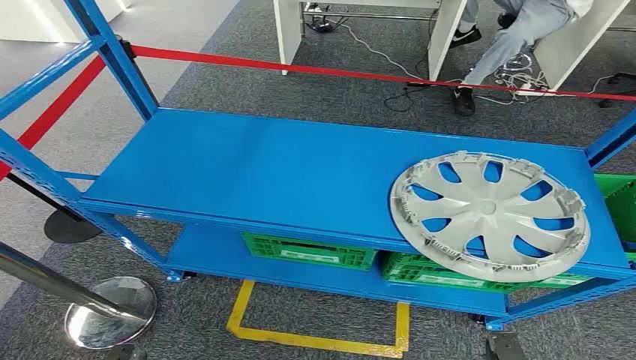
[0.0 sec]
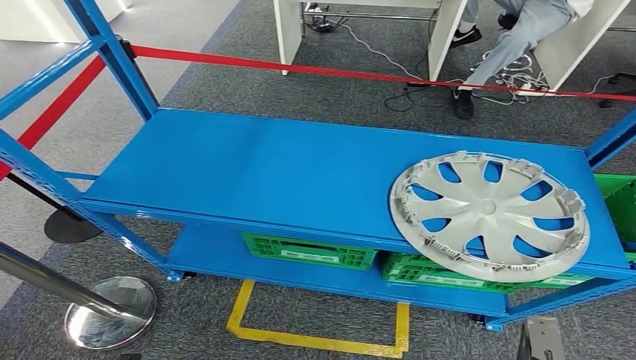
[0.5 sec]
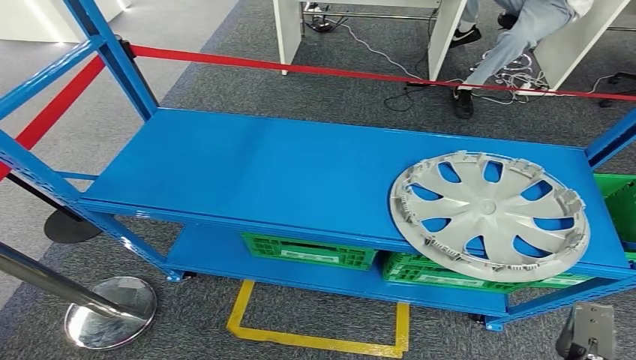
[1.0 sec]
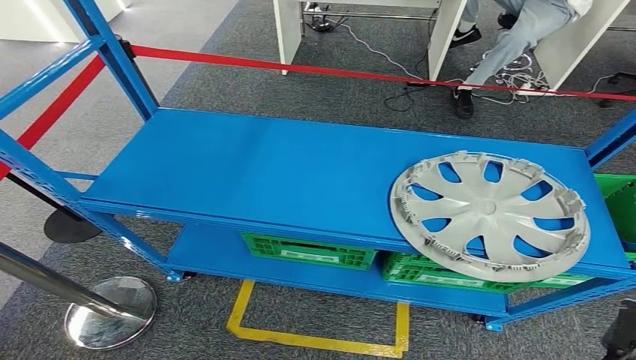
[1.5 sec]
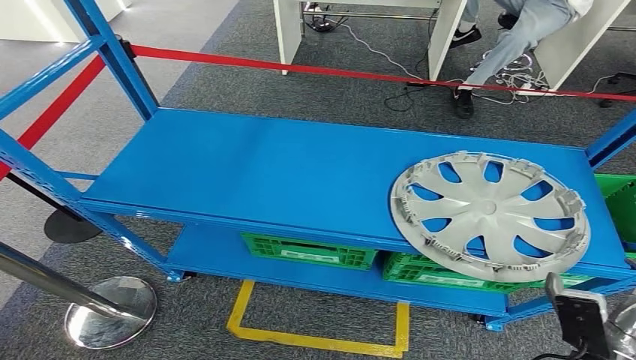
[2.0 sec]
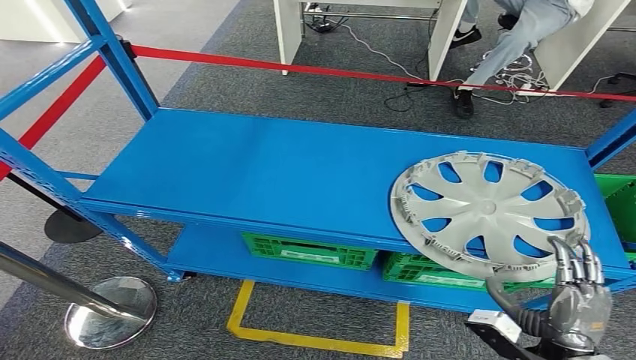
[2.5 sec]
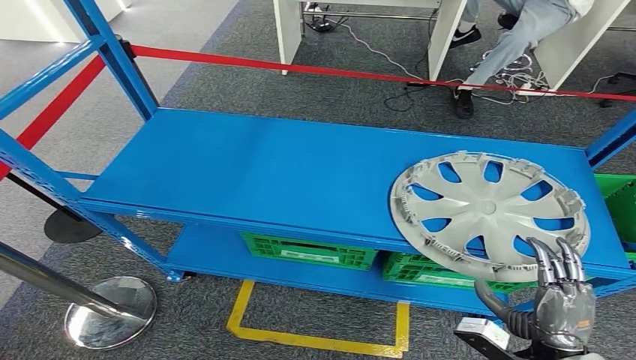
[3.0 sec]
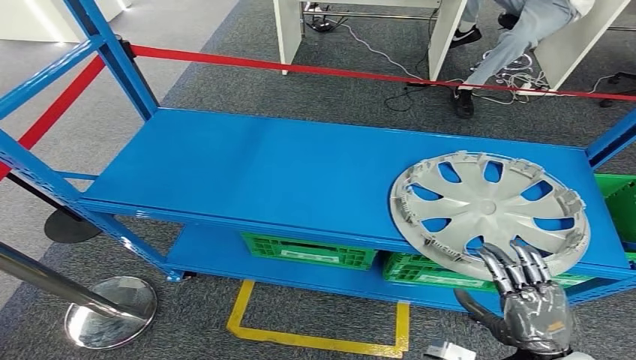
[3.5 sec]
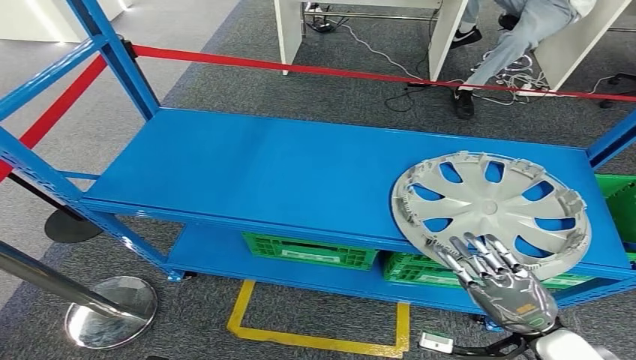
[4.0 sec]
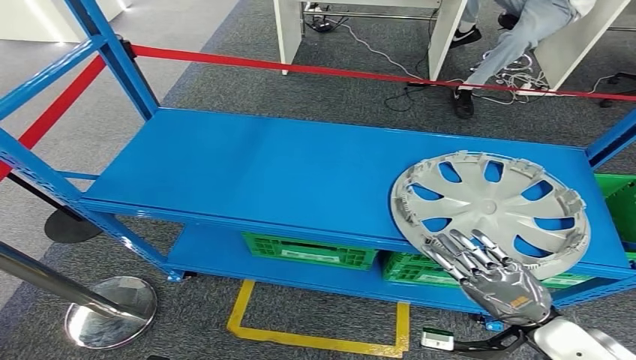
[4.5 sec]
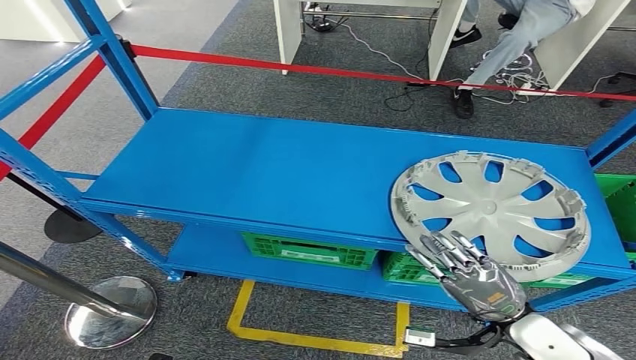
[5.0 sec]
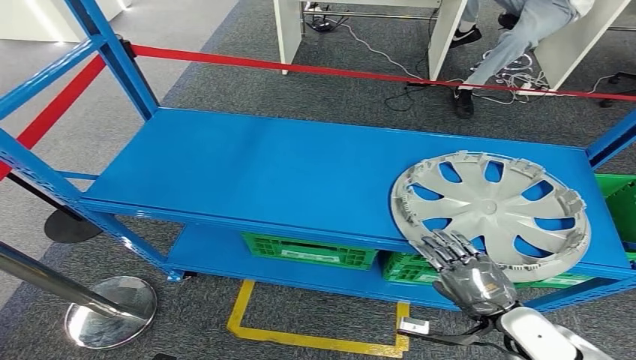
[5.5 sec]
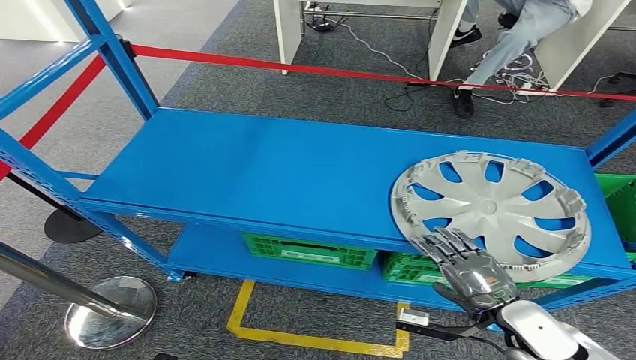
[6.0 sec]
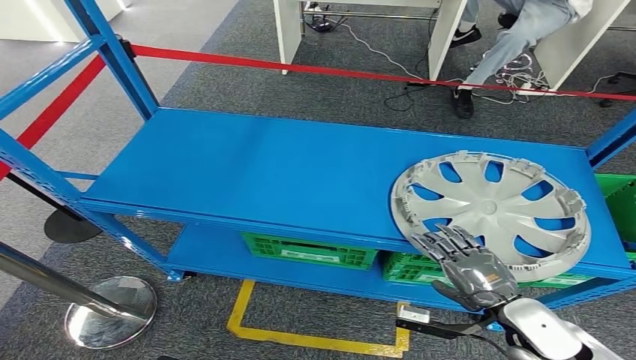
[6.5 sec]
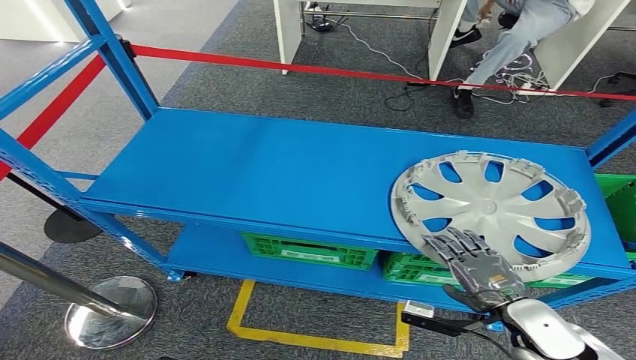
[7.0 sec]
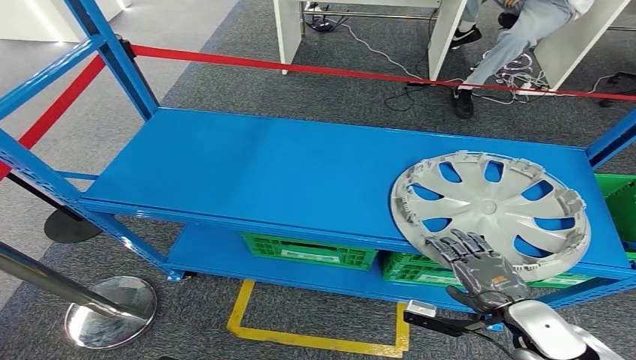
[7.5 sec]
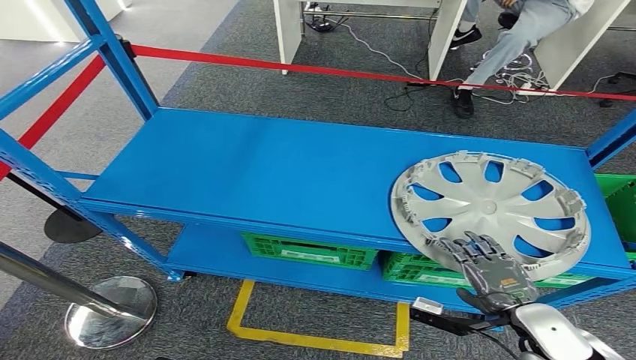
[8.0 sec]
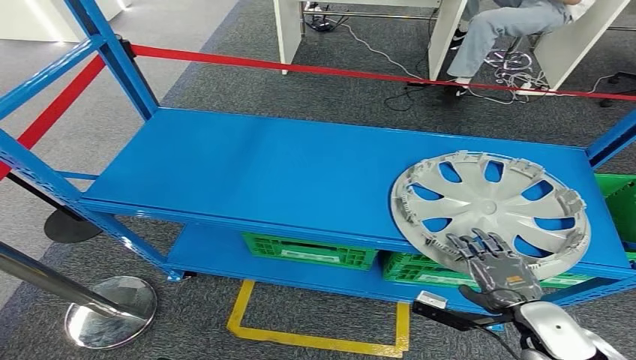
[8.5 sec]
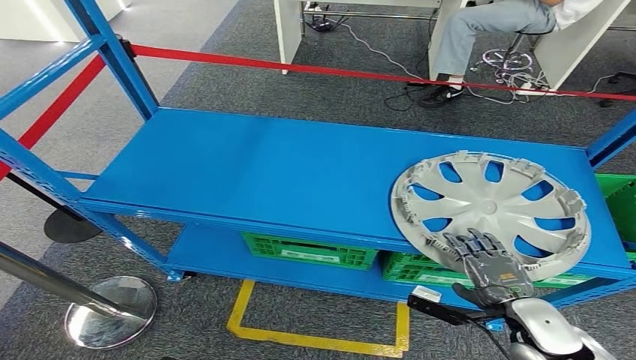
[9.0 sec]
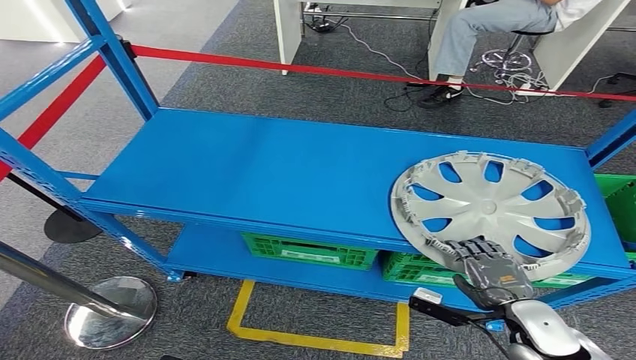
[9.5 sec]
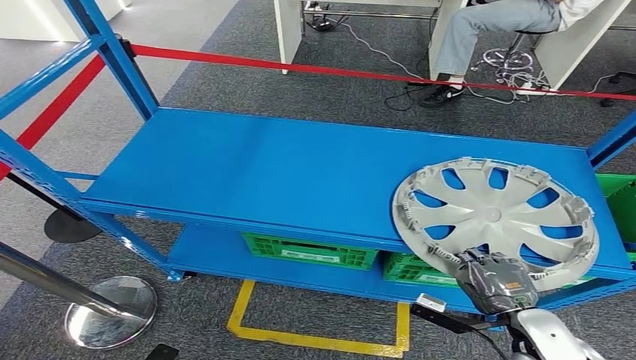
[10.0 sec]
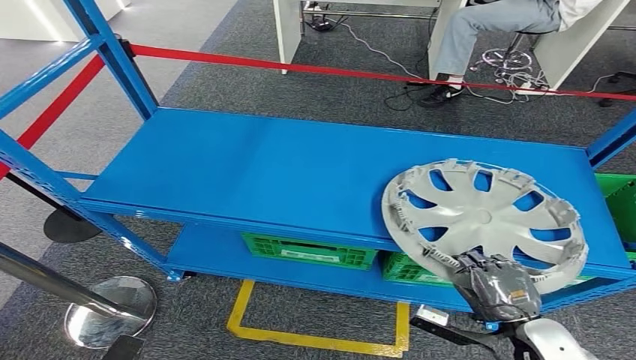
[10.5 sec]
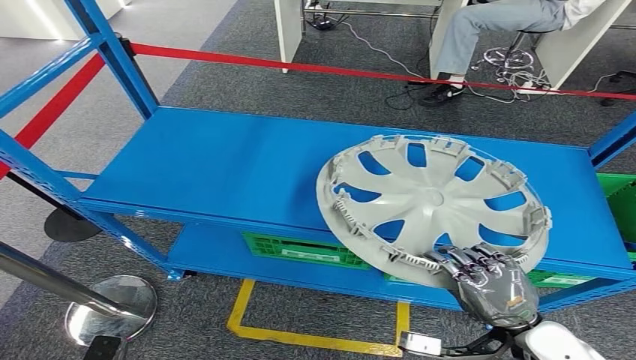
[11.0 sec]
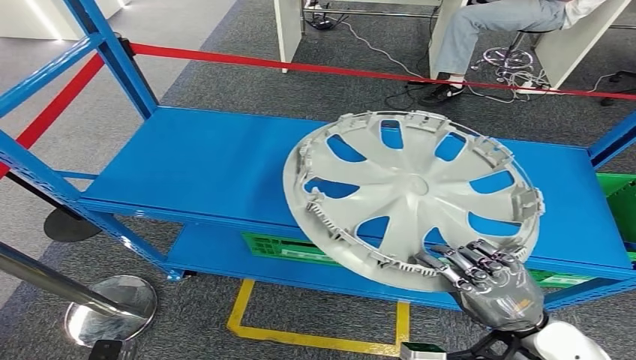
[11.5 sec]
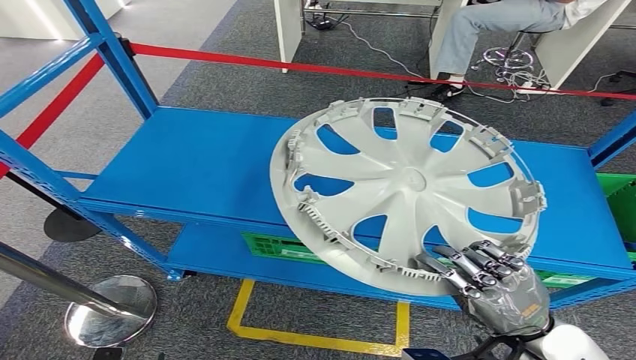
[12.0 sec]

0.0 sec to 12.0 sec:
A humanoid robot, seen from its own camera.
6.0 sec to 10.0 sec: The hands move only a little.

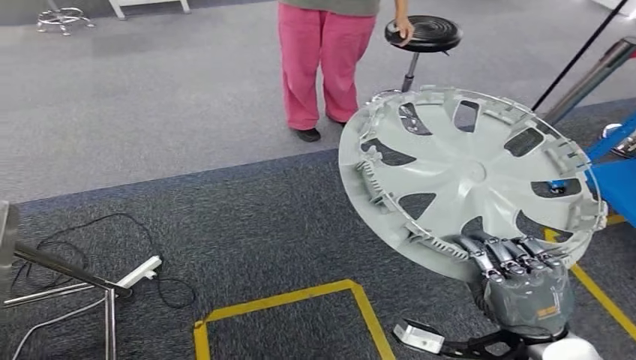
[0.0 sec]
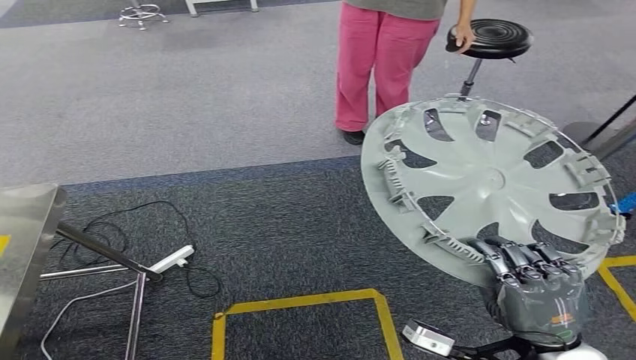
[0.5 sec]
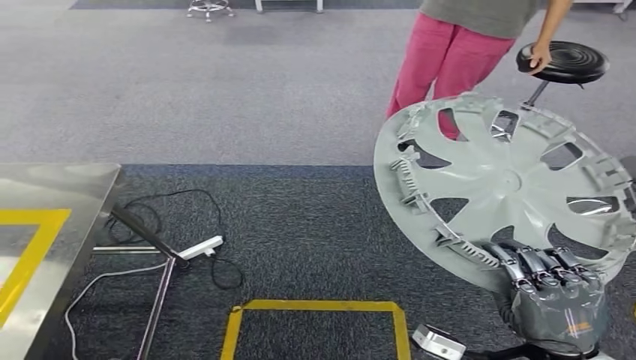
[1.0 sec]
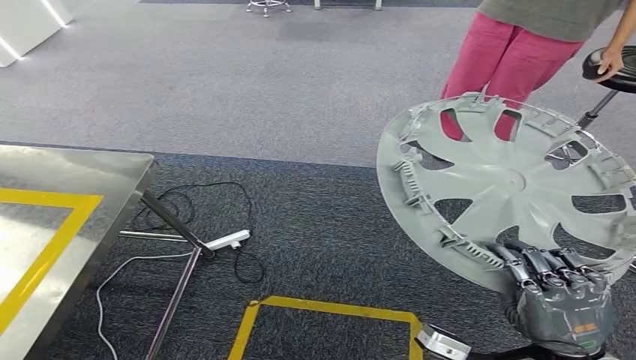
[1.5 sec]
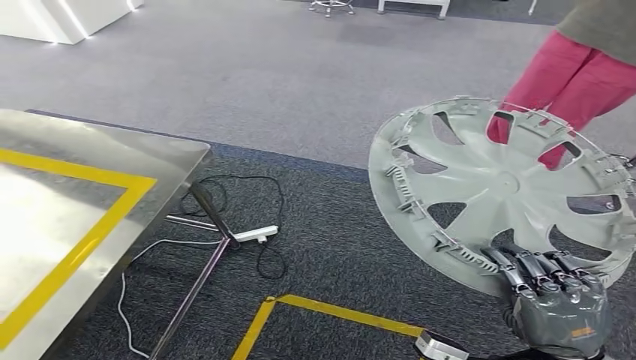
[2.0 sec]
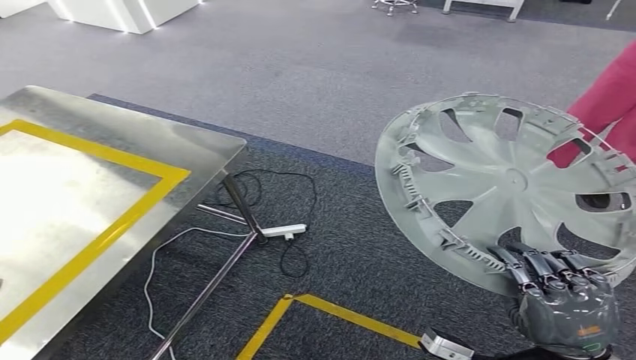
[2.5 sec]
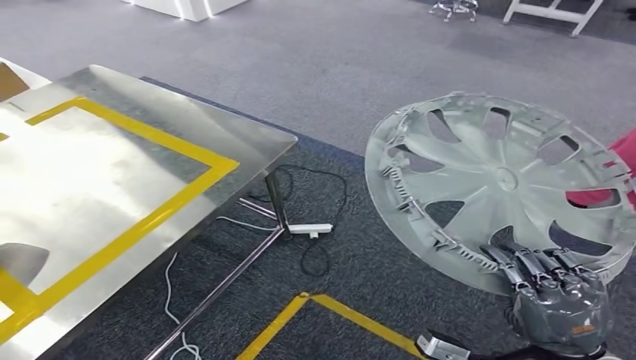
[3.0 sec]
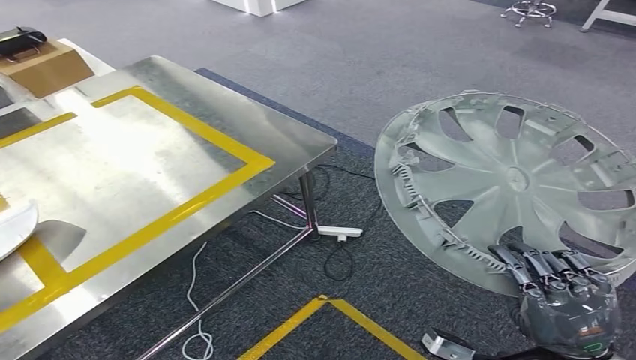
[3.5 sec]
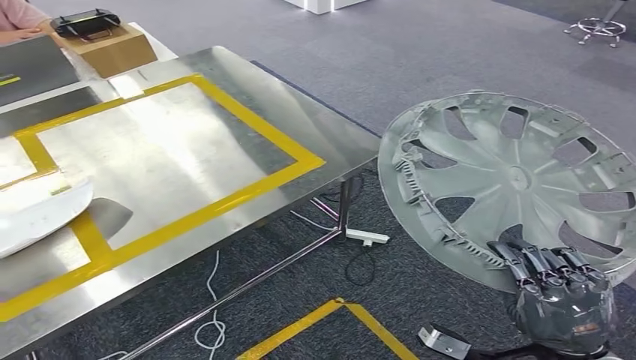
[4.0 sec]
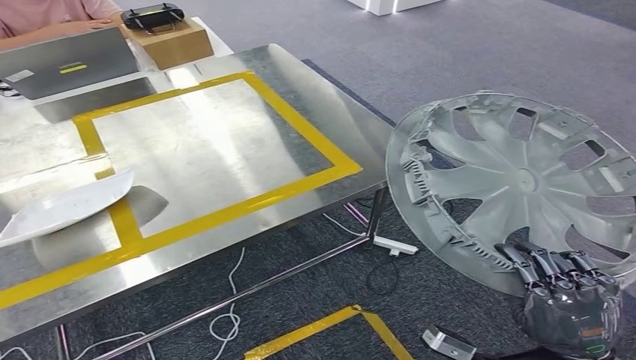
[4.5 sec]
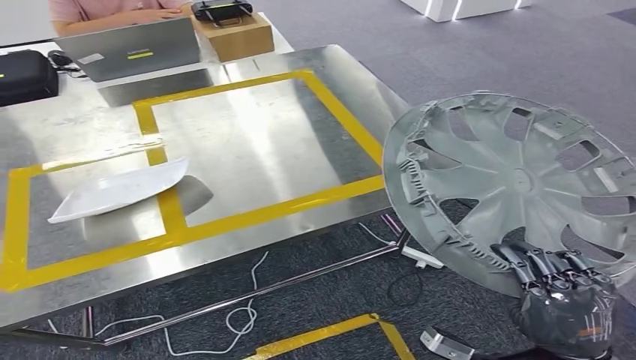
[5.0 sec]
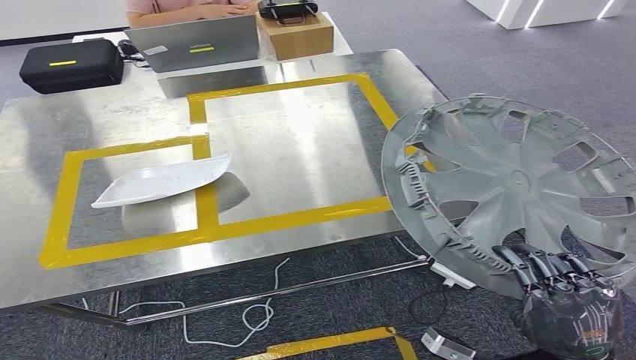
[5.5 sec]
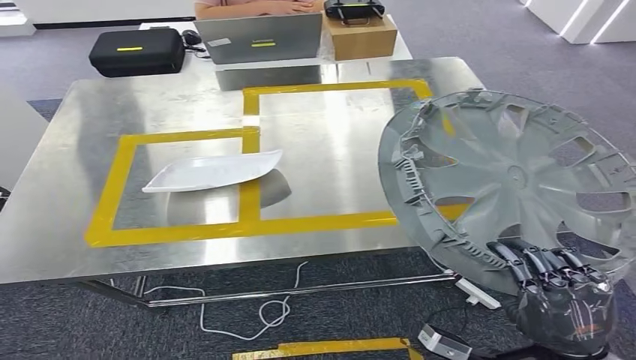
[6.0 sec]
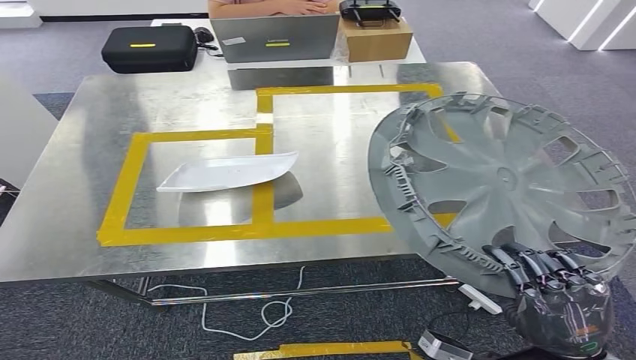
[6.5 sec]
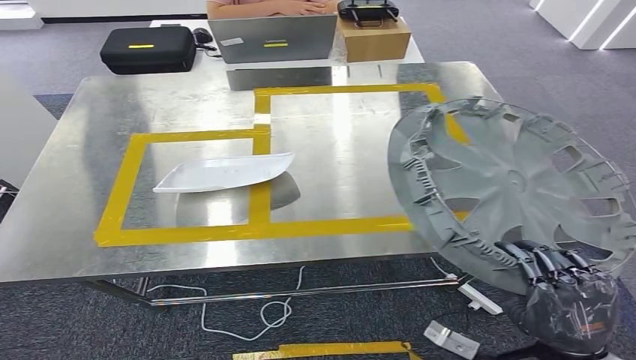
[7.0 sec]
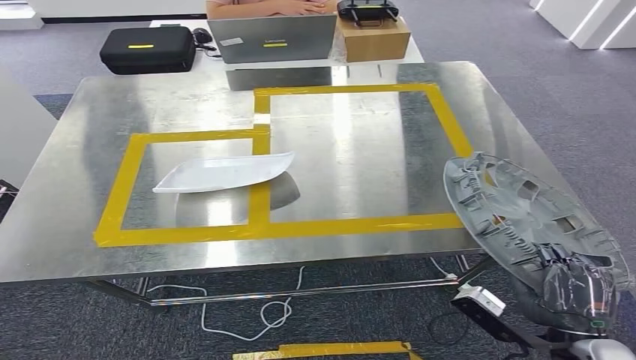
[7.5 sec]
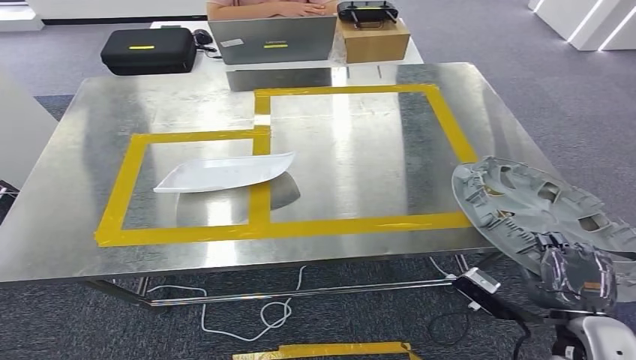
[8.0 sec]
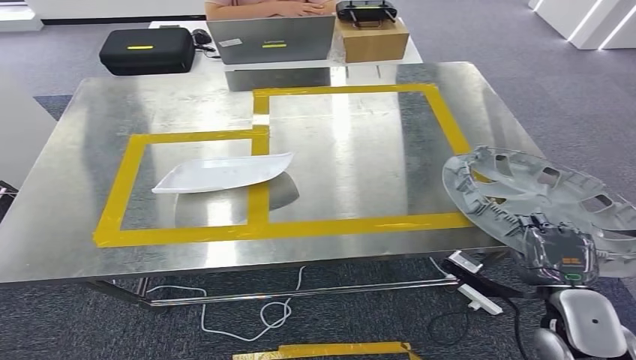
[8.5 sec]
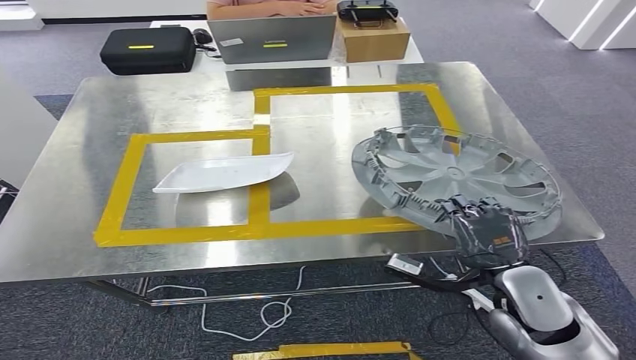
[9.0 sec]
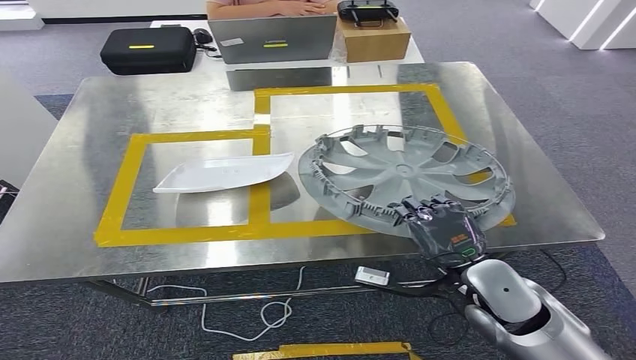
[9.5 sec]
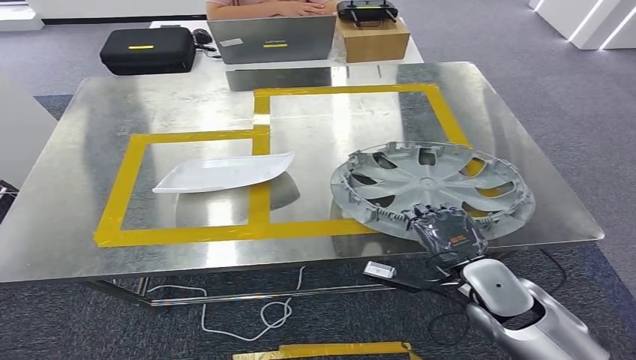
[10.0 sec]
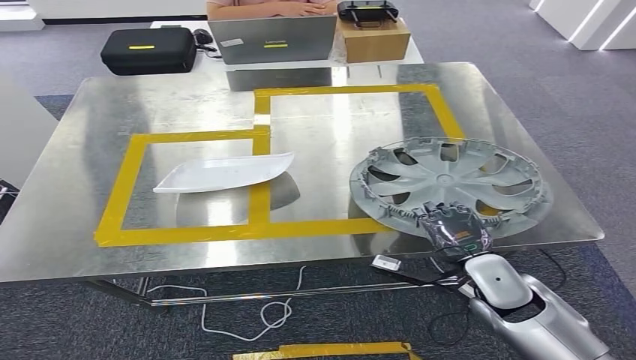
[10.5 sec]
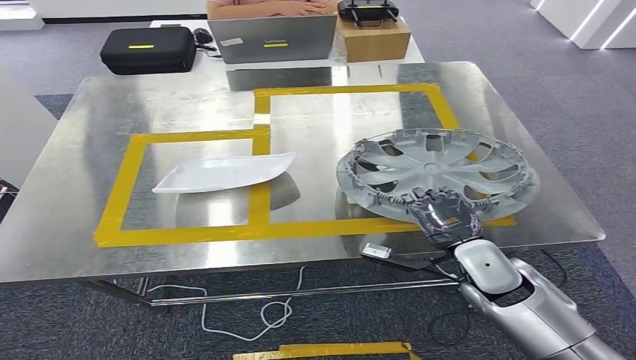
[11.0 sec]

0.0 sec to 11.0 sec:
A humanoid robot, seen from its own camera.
Step, 0.0 sec to 3.5 sec: Move the small component to the workbench.
7.5 sec to 9.0 sec: The right hand goes approximately 10 cm forward.
9.0 sec to 11.0 sec: The right hand is displaced forward by about 5 cm.
